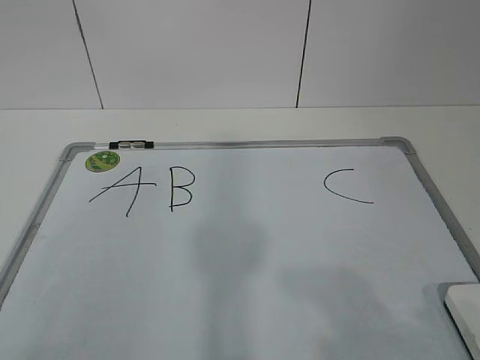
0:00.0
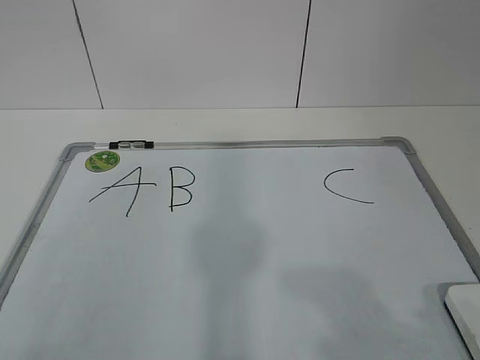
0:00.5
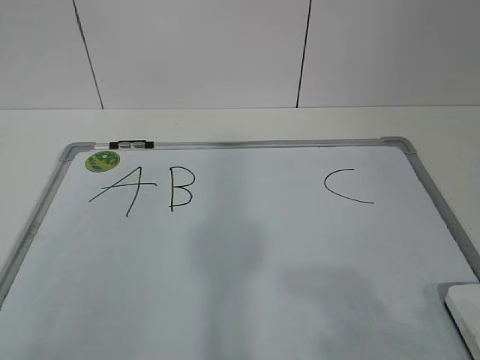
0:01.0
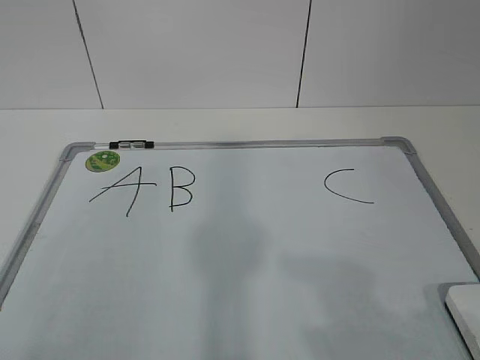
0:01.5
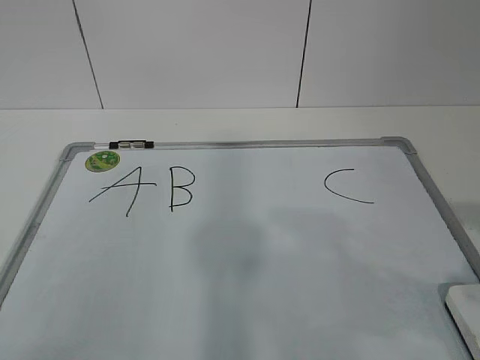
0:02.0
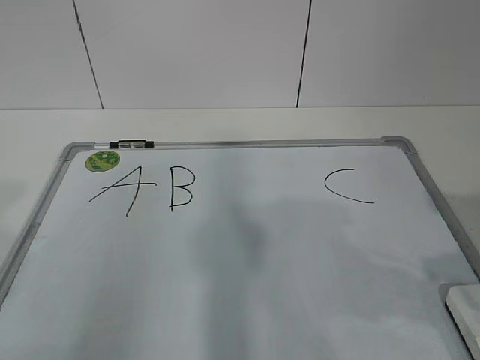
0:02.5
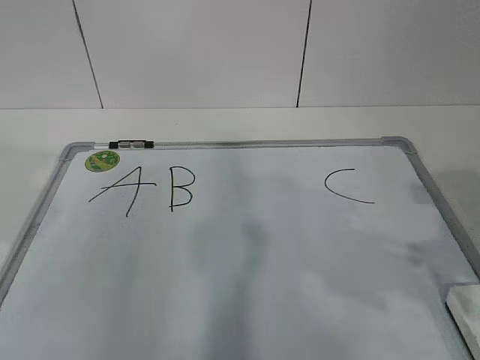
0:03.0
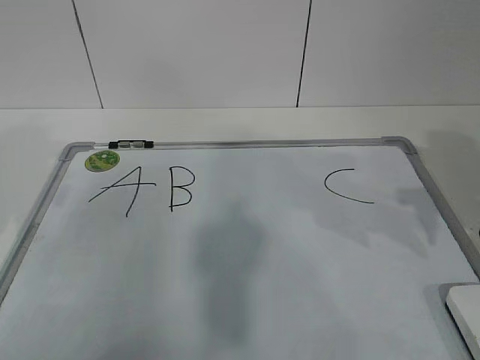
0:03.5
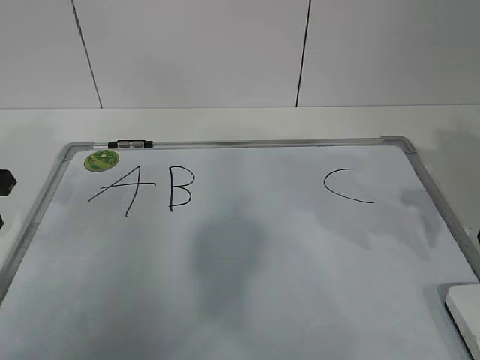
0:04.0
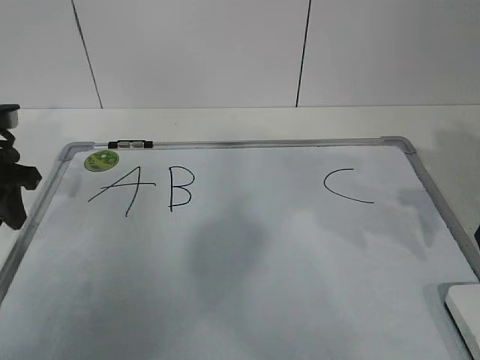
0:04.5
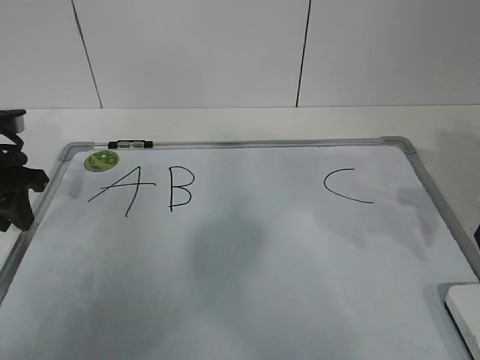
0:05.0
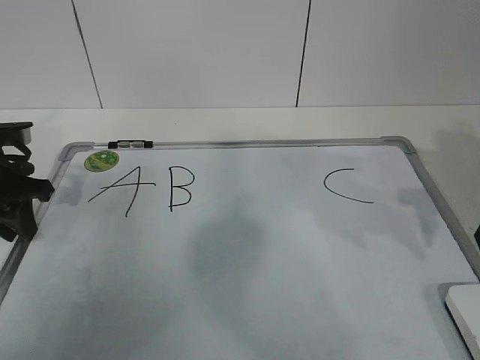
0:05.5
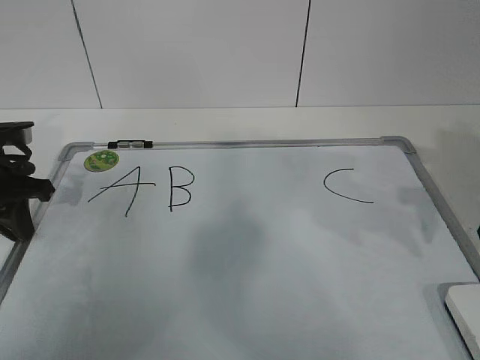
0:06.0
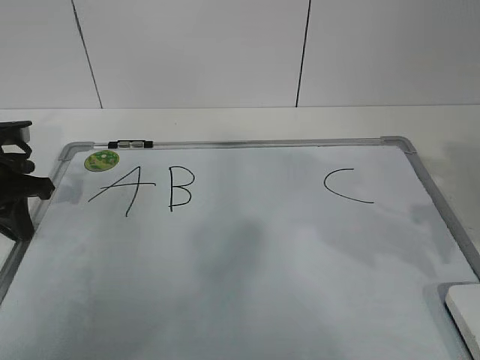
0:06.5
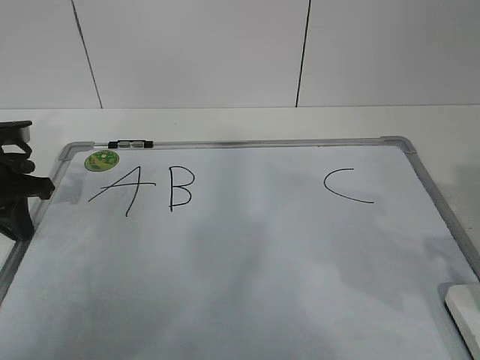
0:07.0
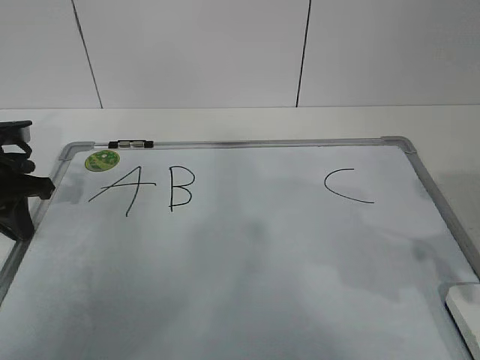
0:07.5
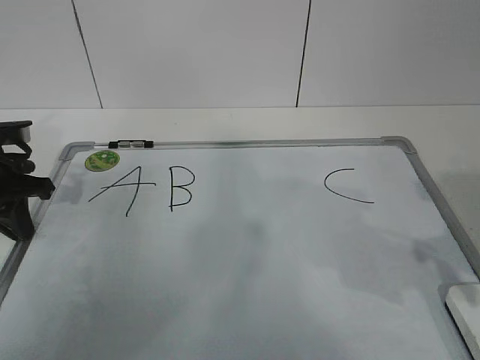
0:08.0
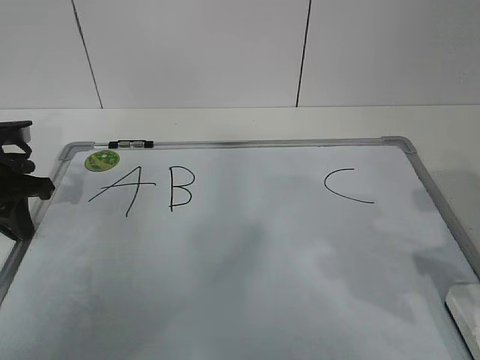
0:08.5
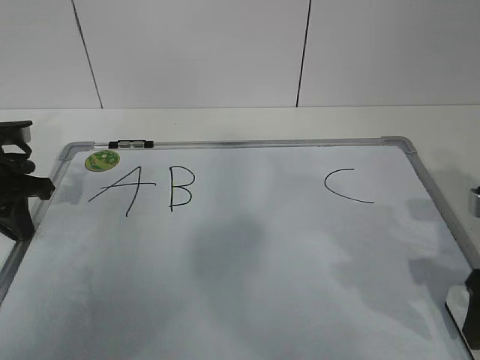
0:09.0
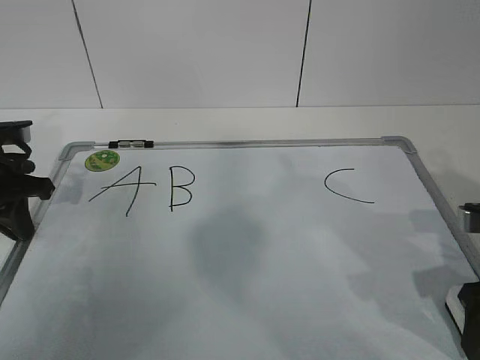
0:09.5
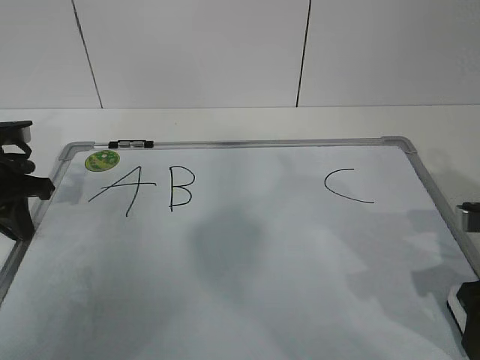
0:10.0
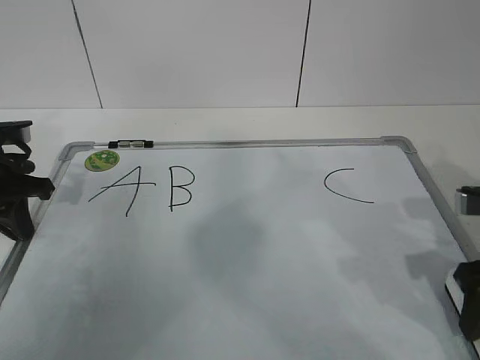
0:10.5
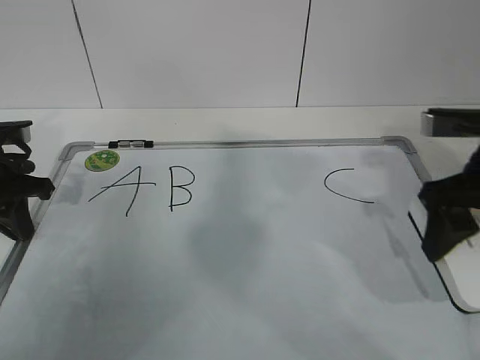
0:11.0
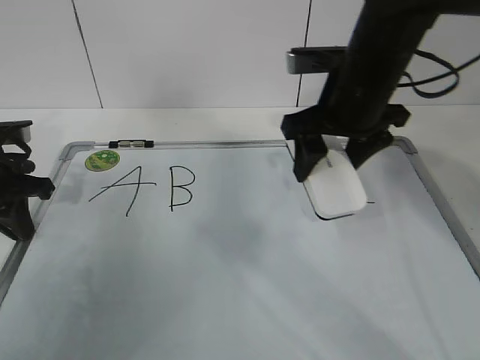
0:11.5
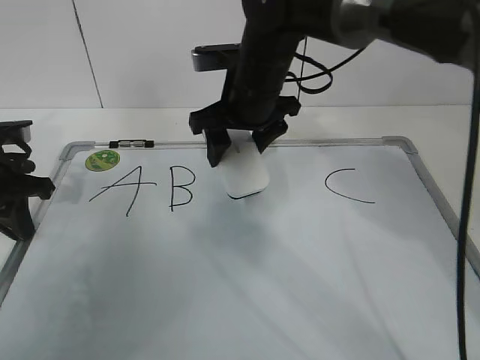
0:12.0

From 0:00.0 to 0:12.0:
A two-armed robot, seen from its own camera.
Task of the whole recording: pick up the eraser on the blackboard and erase the letter "B".
Step, from 0:00.0 to 0:04.5: Hold the drawing board steady with your left hand.
Step, from 0:05.0 to 0:08.5: Grab the eraser with your right hand.
From 0:02.0 to 0:04.0: The right gripper is displaced forward by roughly 20 cm. The left gripper travels forward by some 30 cm.
From 0:04.0 to 0:06.0: The left gripper shifts some 5 cm downward, and closes.
From 0:06.0 to 0:08.0: The right gripper shifts roughly 5 cm backward.
From 0:08.0 to 0:10.0: The right gripper heads downward, covering roughly 5 cm, and opens, then closes once more.
From 0:10.0 to 0:12.0: The right gripper heads to the left and forward, covering some 30 cm.

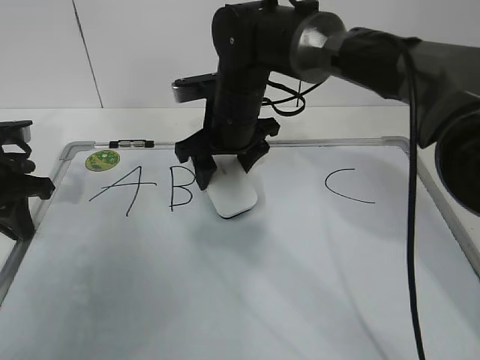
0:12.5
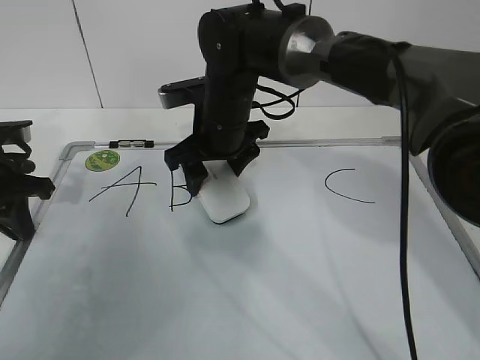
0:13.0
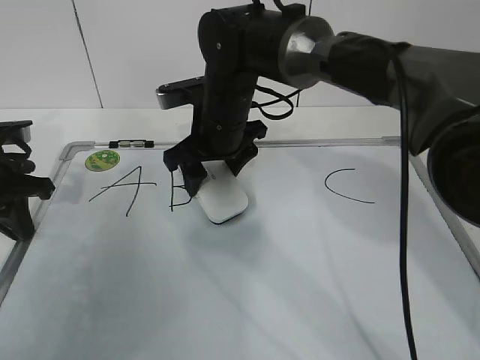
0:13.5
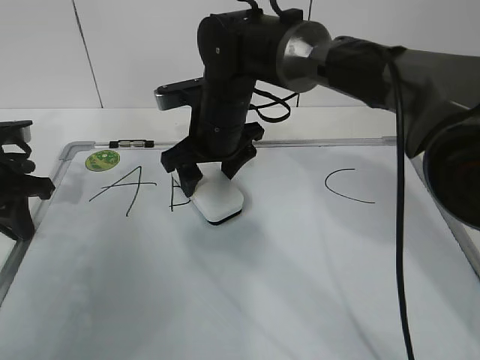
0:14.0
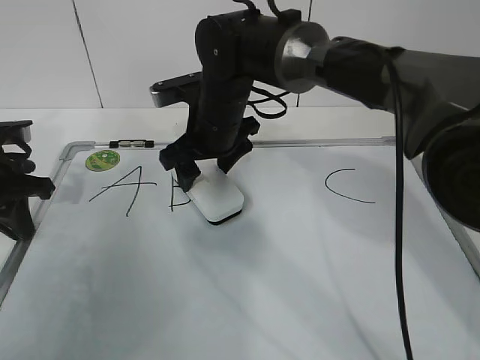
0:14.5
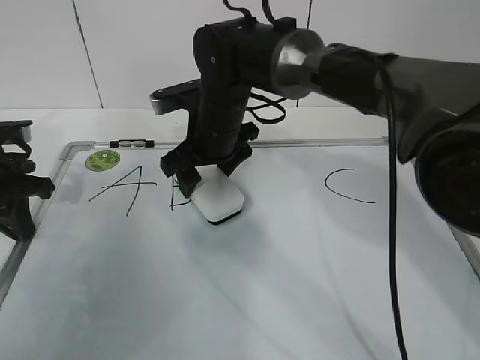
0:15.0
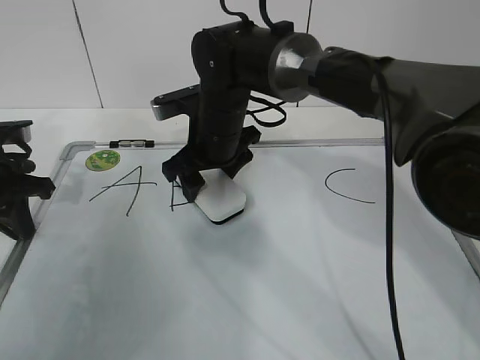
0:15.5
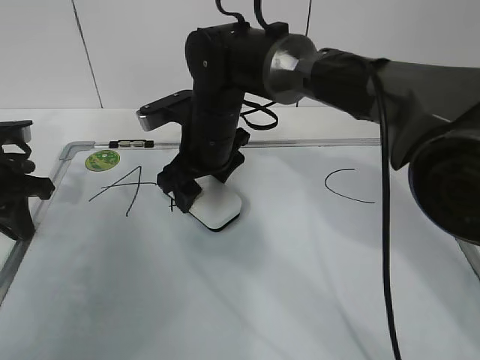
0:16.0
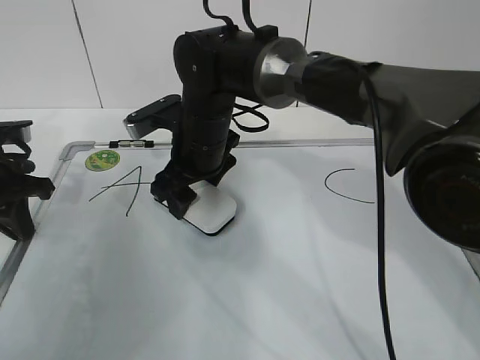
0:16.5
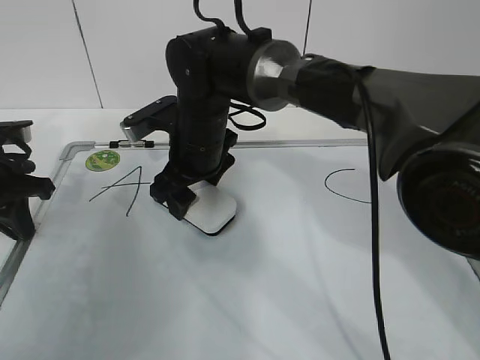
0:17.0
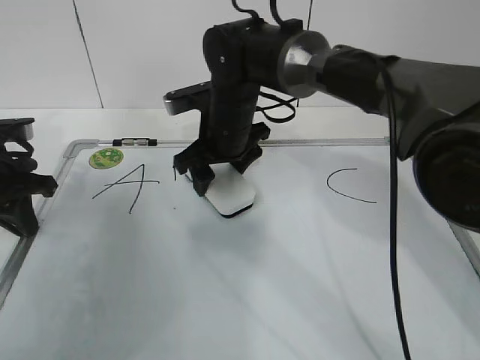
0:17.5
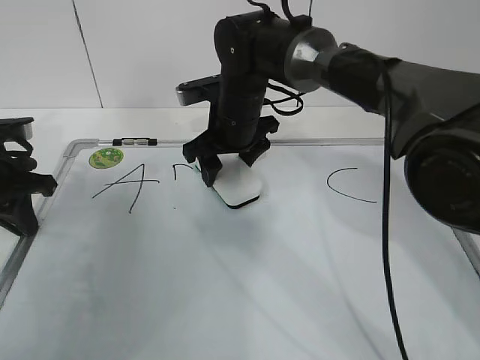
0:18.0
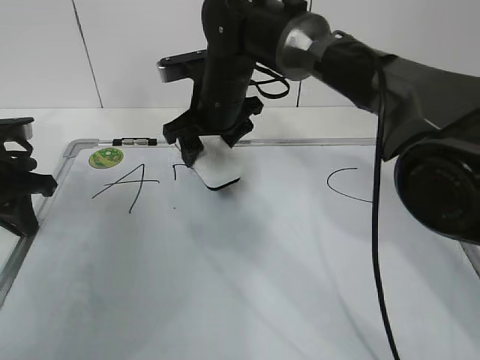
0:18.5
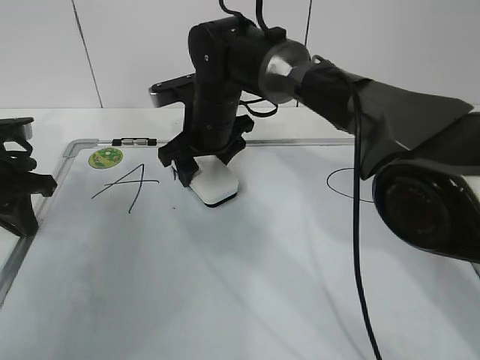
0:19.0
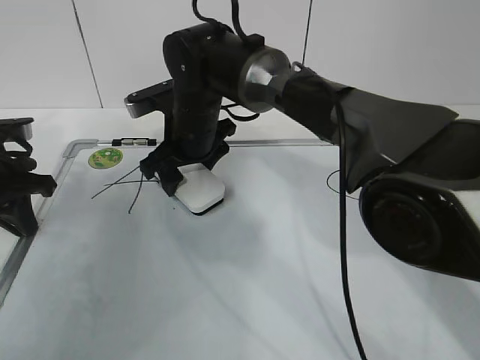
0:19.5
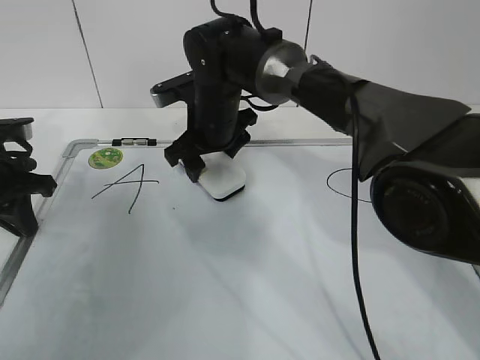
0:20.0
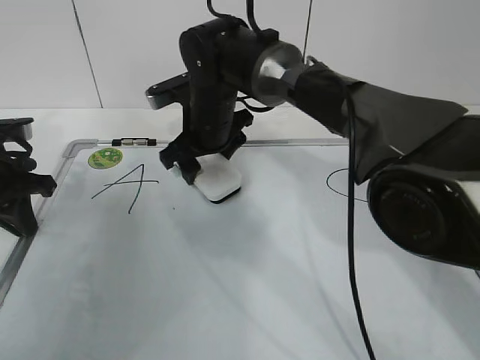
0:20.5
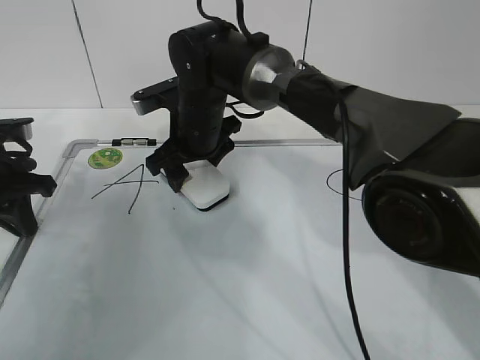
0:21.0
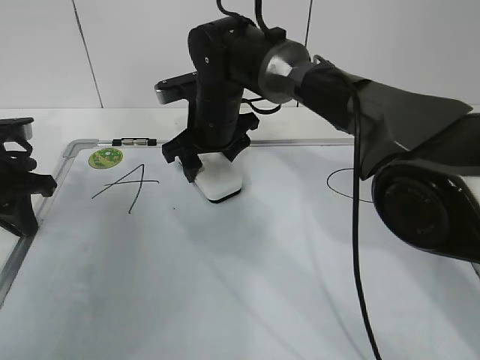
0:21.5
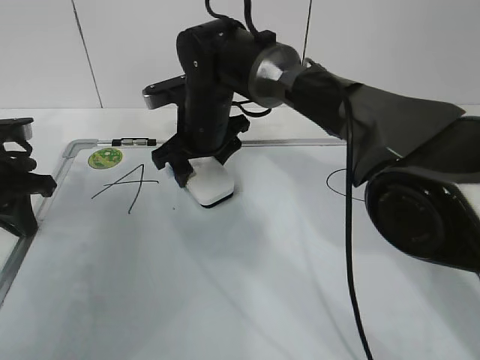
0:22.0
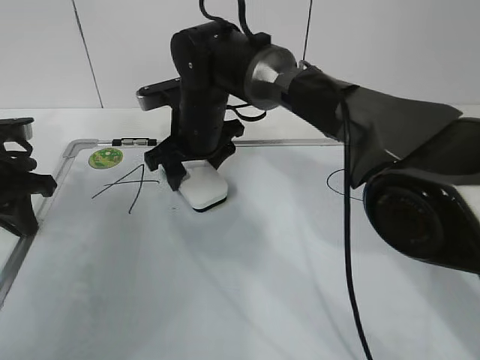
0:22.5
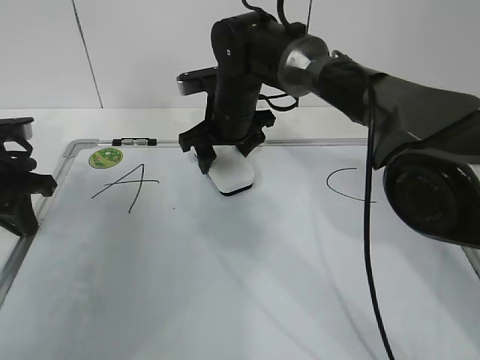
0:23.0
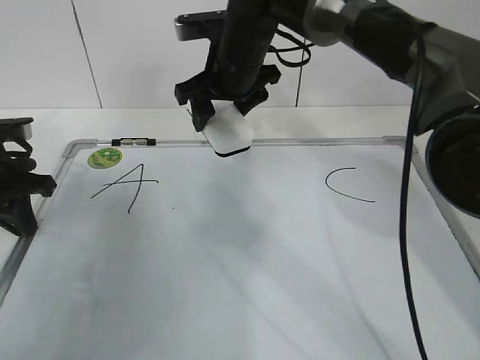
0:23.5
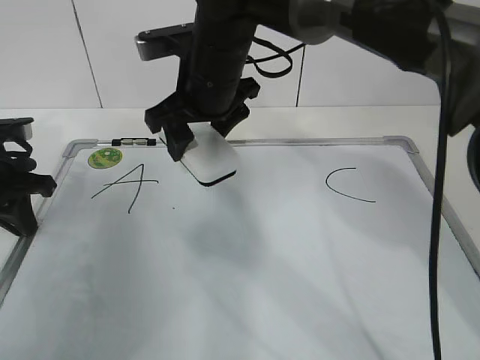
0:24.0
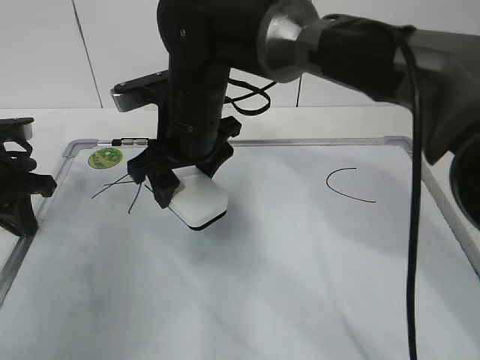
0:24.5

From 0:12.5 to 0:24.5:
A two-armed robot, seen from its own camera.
Task of the whole recording: pick up the eraser on the blackboard and erase the letter "B".
Step, from 0:12.5 to 0:23.0: Erase the letter B with your right hand.
From 0:12.5 to 0:14.5: The right gripper opens up.
From 0:14.5 to 0:16.5: The right gripper closes up.
From 0:16.5 to 0:18.5: The right gripper moves forward, roughly 5 cm.
From 0:18.5 to 0:22.5: There are only small adjustments of the grippers.
From 0:22.5 to 0:24.5: The right gripper goes roughly 5 cm backward.

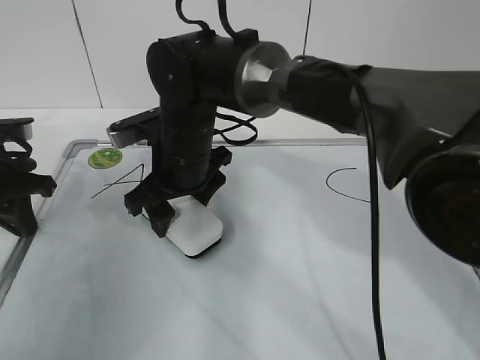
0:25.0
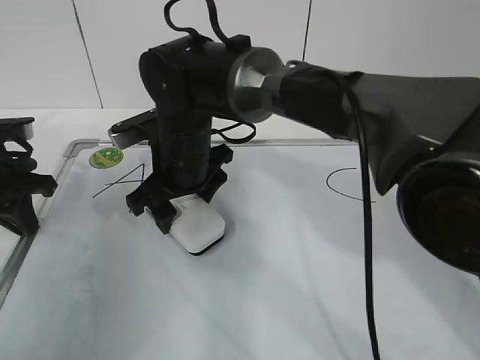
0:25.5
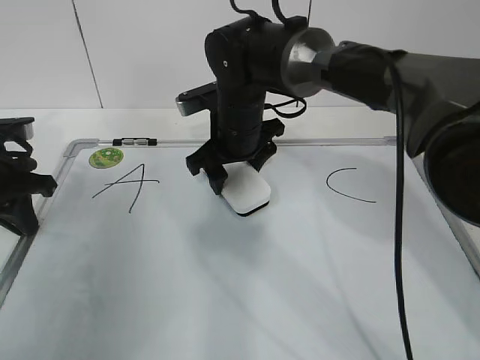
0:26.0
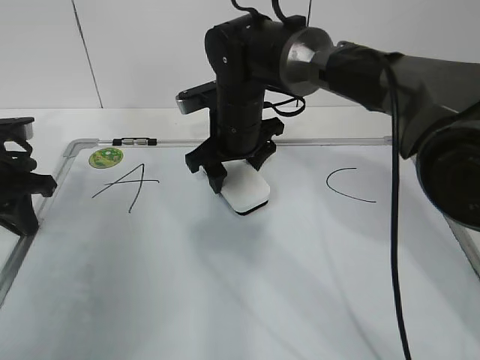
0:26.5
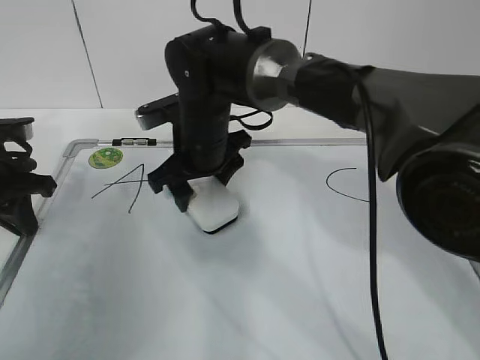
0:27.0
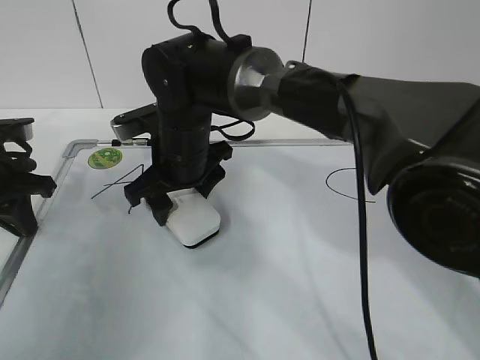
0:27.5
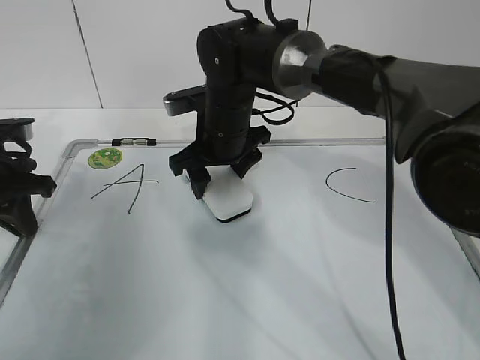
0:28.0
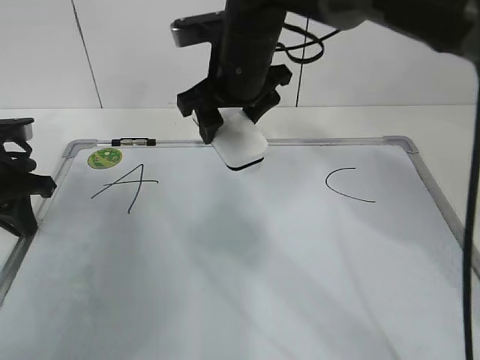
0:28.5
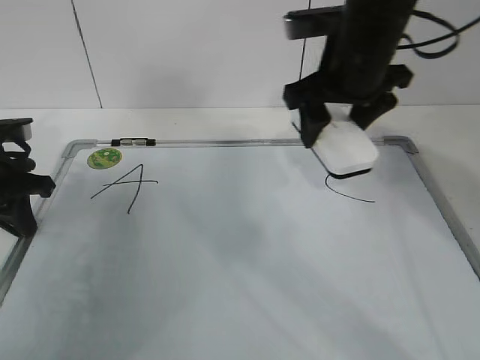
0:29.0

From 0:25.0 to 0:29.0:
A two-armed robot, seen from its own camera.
Task of the whole recording: pick up the eraser on the blackboard and erase the letter "B".
Step, from 0:25.0 to 0:26.5: Put down the eraser with your right hand.
From 0:27.0 to 0:29.0: The right gripper moves to the right and upward, roughly 20 cm.
